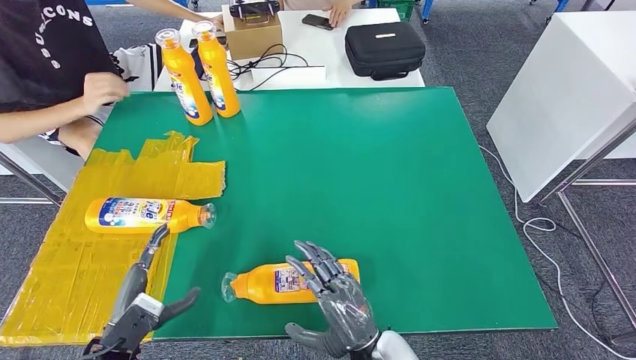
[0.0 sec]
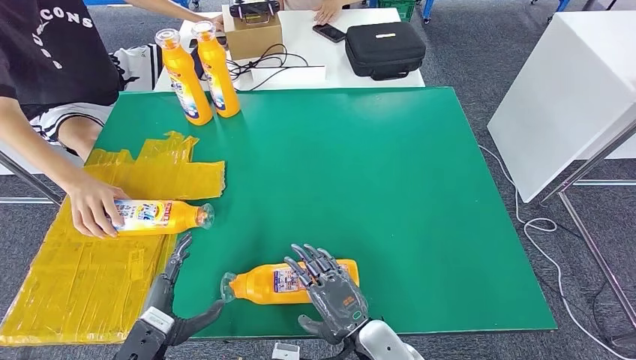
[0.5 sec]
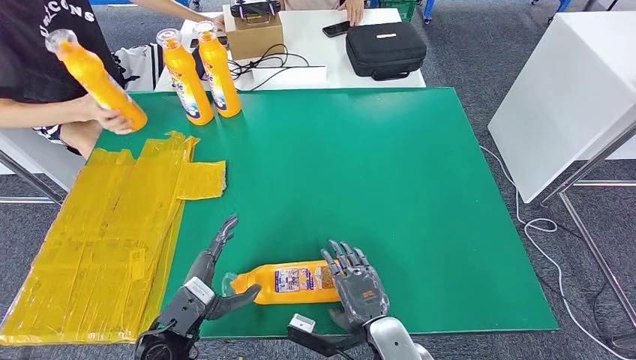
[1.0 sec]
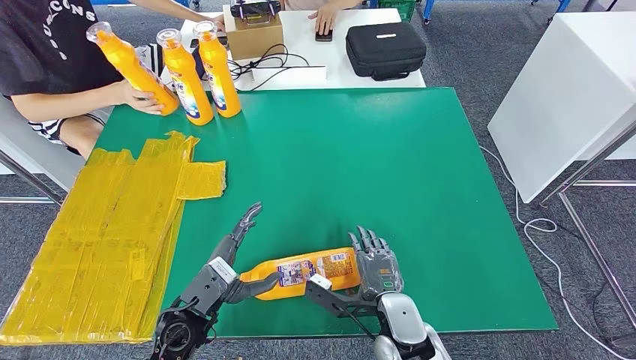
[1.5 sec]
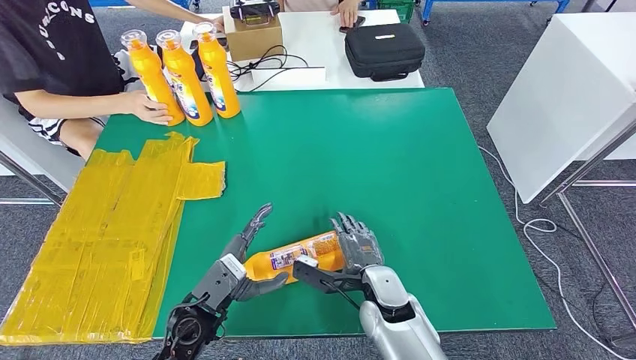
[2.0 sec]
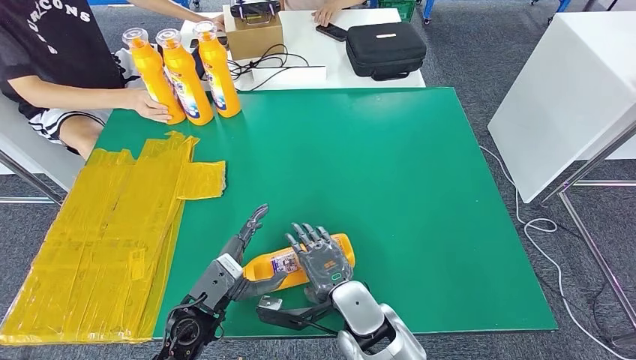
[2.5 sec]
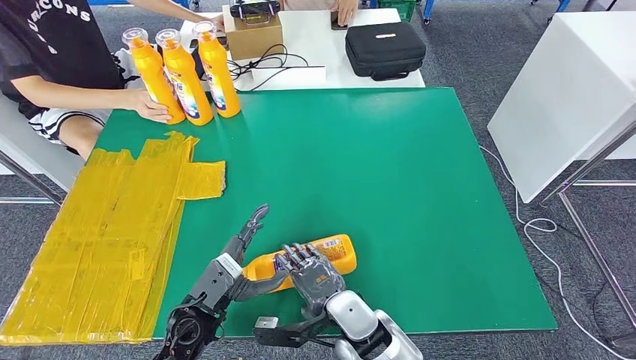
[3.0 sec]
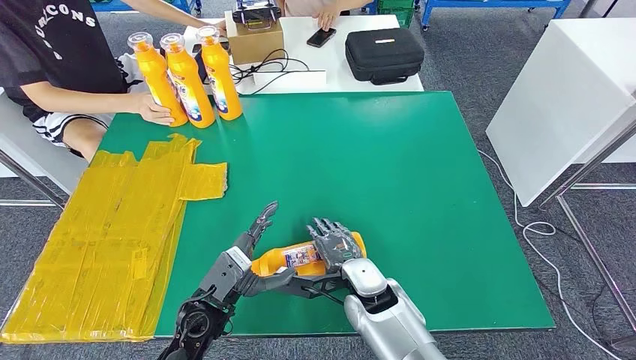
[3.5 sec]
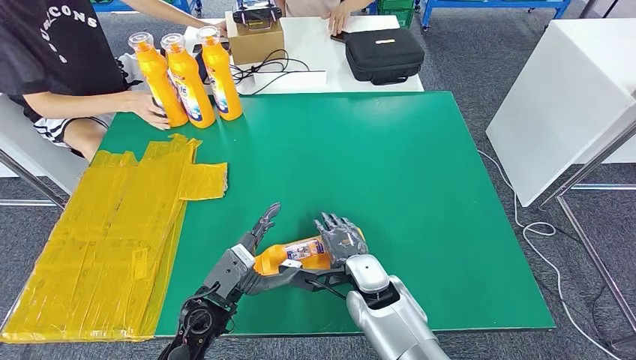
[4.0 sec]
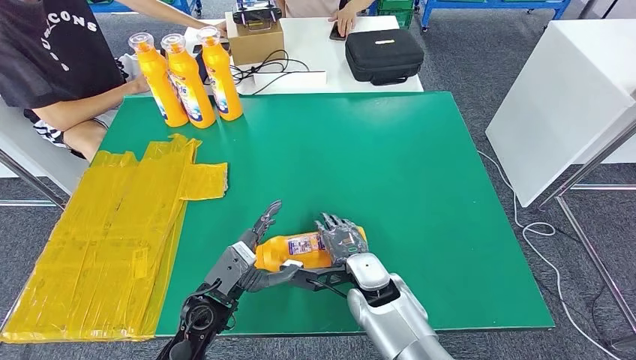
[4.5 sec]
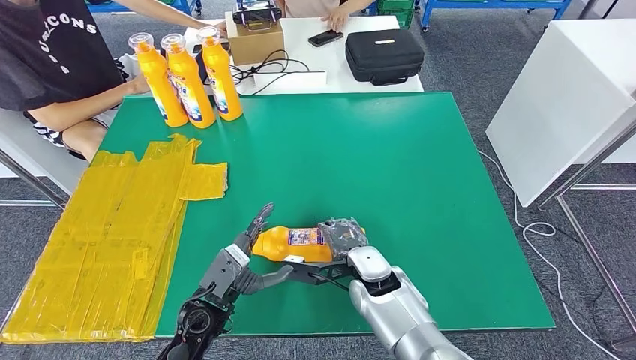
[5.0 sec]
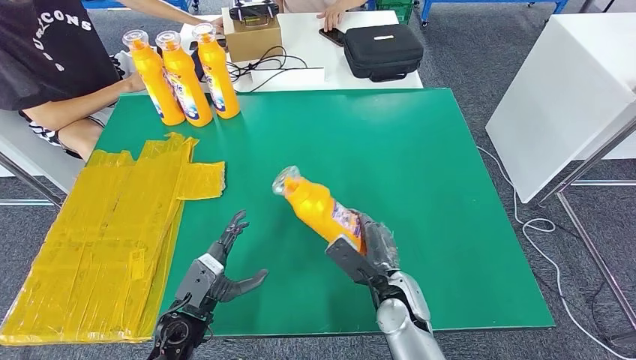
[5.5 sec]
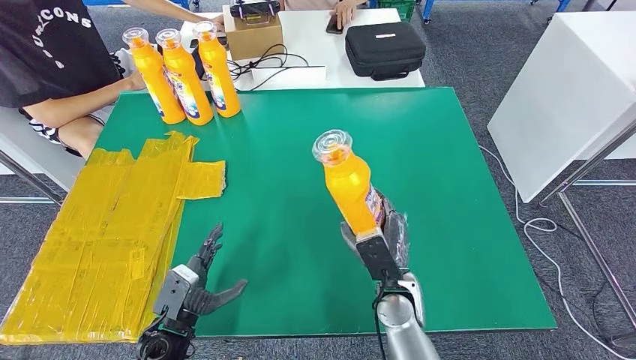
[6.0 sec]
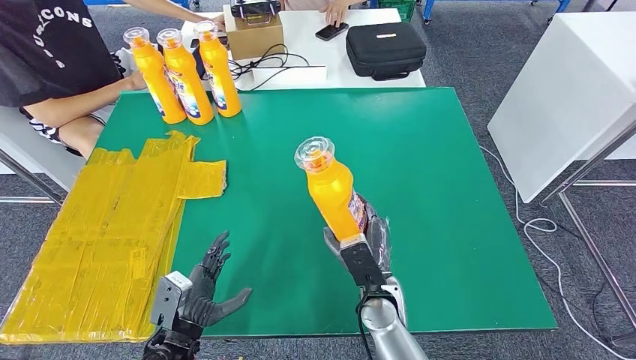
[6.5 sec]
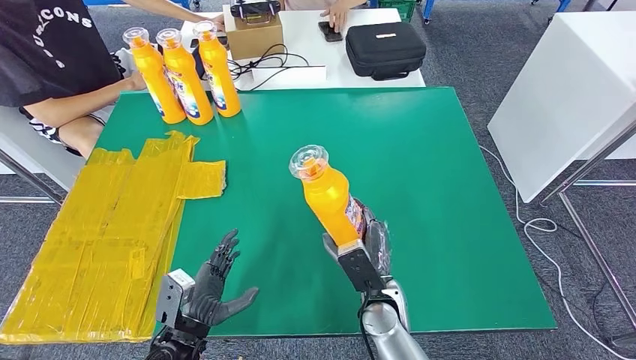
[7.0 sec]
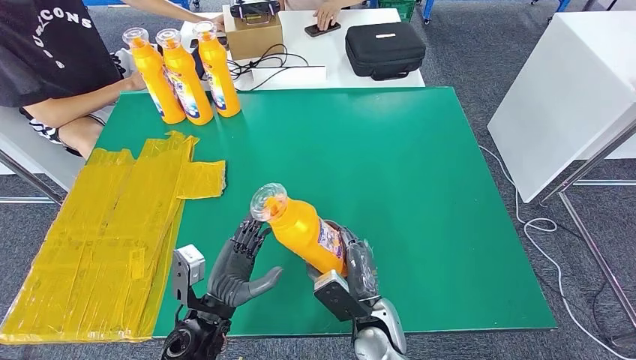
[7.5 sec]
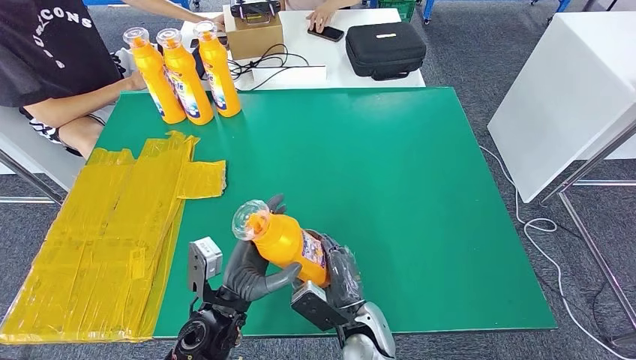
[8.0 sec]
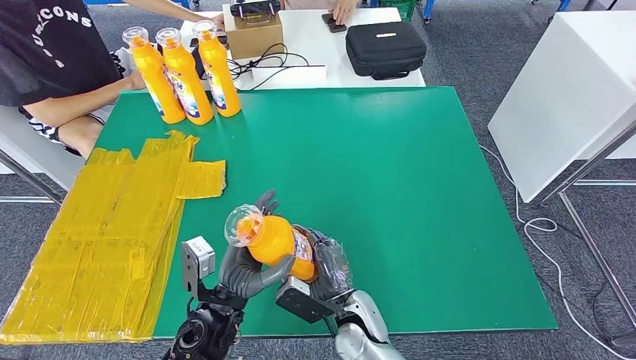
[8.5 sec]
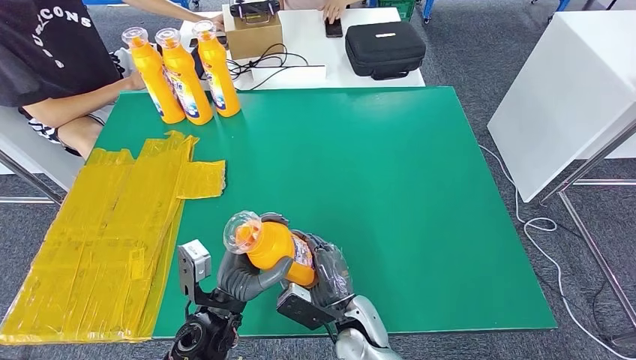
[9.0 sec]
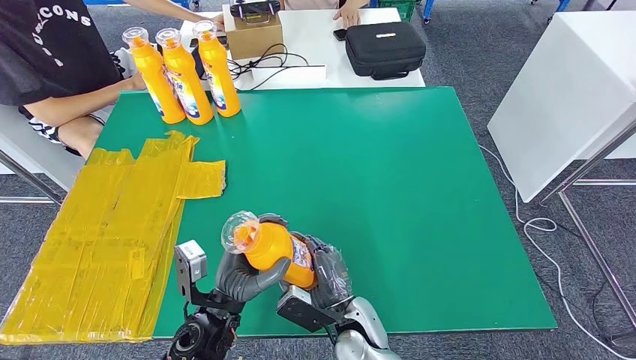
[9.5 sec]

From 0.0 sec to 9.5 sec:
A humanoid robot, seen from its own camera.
Step, from 0.0 sec to 8.5 sec: Pick up the bottle from the table.
From 0.0 sec to 2.0 sec: The left hand is displaced to the right and forward by some 15 cm, while the right hand travels forward by about 10 cm.
From 5.5 sec to 7.5 sec: The right hand ends up approximately 5 cm from where it was. The left hand changes place by approximately 5 cm.
From 7.5 sec to 9.5 sec: The hands stay close to where they were, moving slightly.

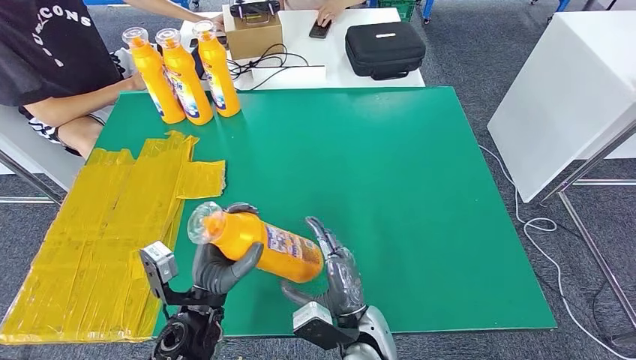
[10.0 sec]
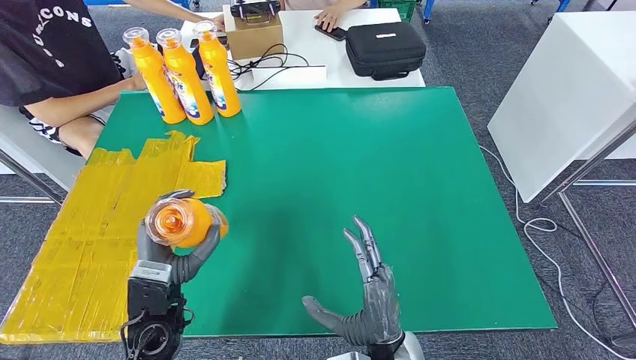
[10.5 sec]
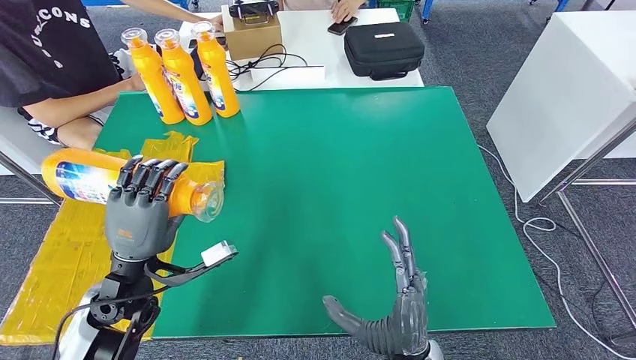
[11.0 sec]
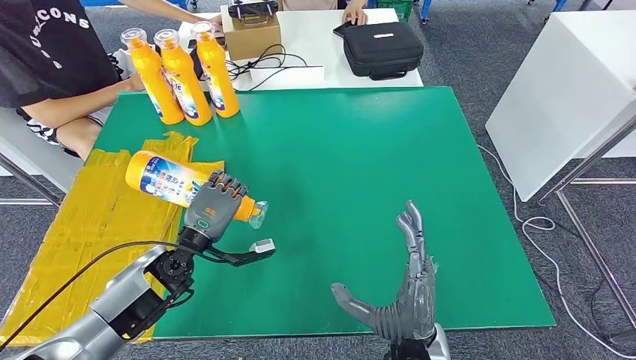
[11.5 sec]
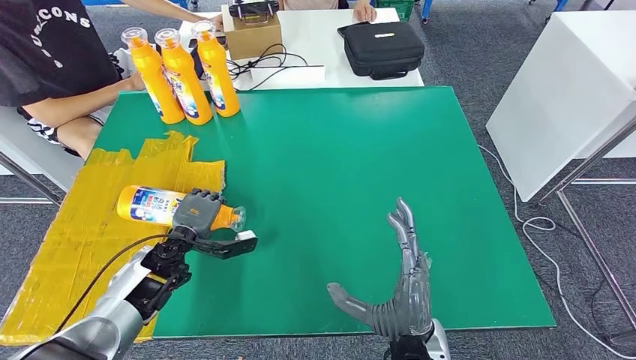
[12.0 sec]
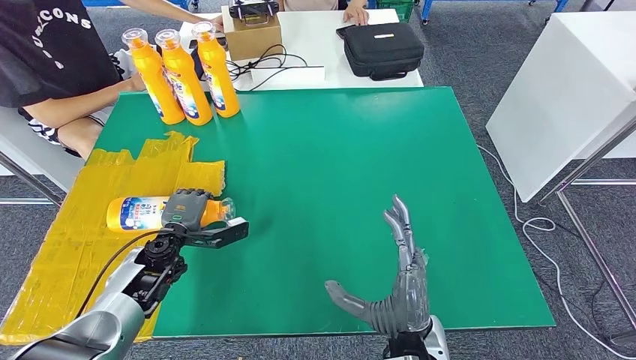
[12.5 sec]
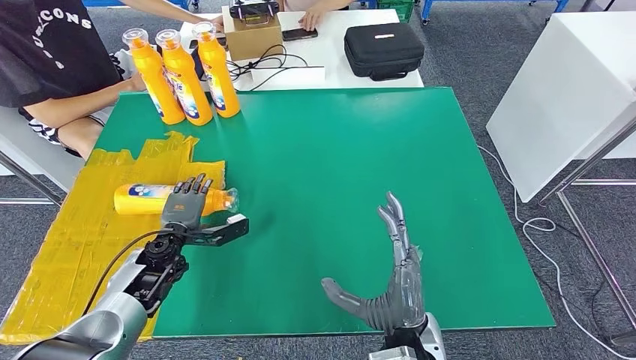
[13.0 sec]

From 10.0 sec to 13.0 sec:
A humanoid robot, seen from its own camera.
Step, from 10.0 sec to 13.0 sec: Flip the bottle to face forward.
From 10.0 sec to 11.5 sec: The left hand travels forward and to the left by approximately 10 cm. The right hand moves upward and to the right, about 10 cm.
From 11.5 sec to 13.0 sec: The left hand shifts about 10 cm to the left and downward.
